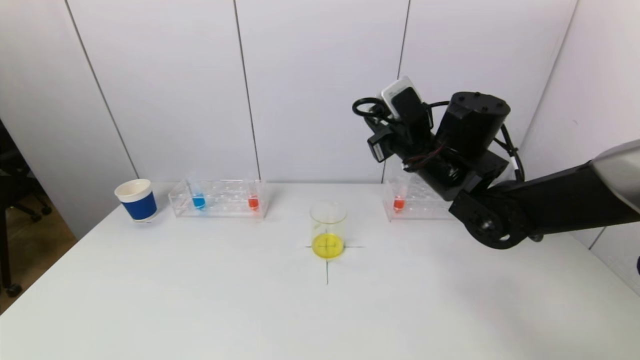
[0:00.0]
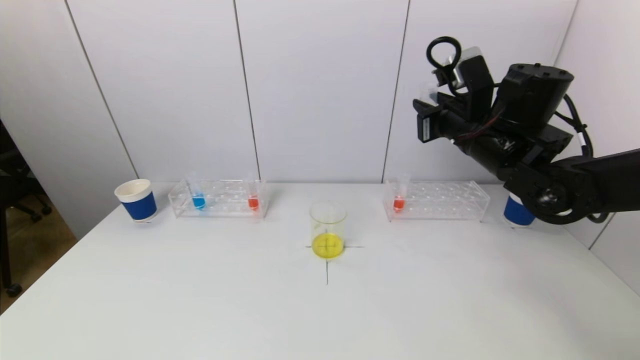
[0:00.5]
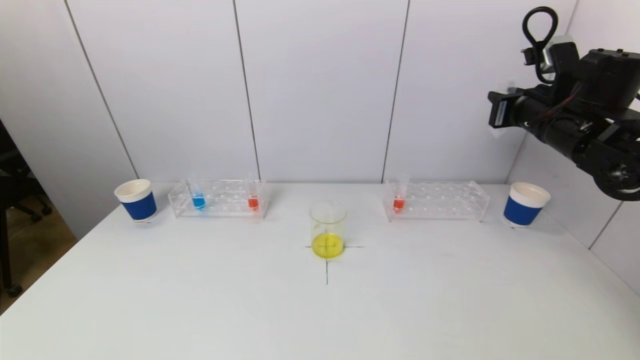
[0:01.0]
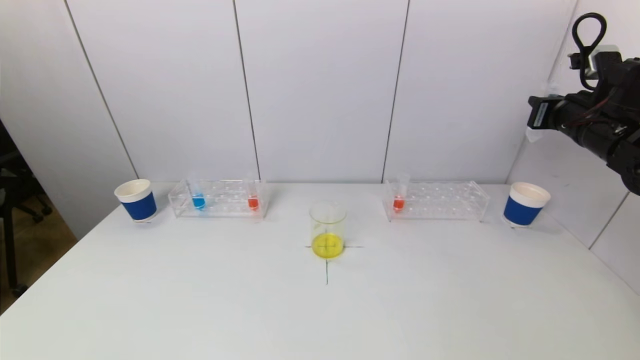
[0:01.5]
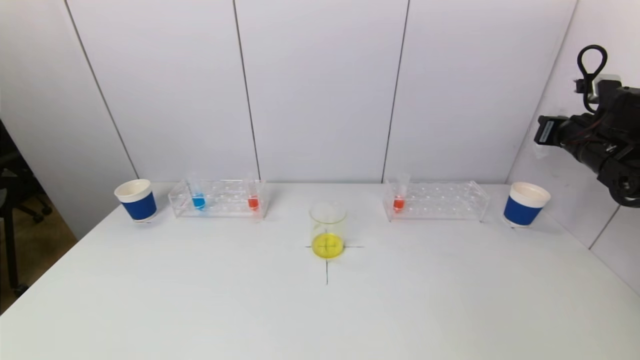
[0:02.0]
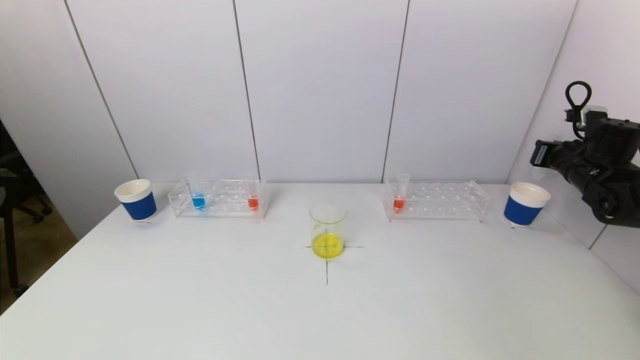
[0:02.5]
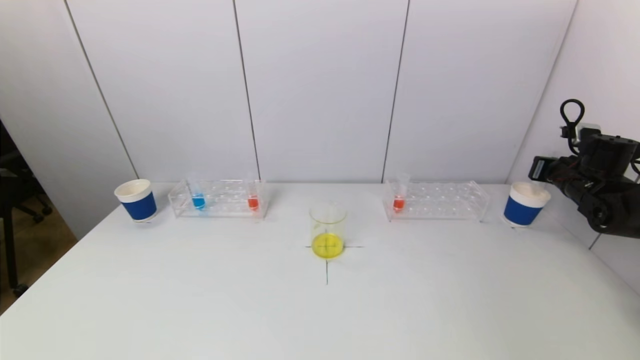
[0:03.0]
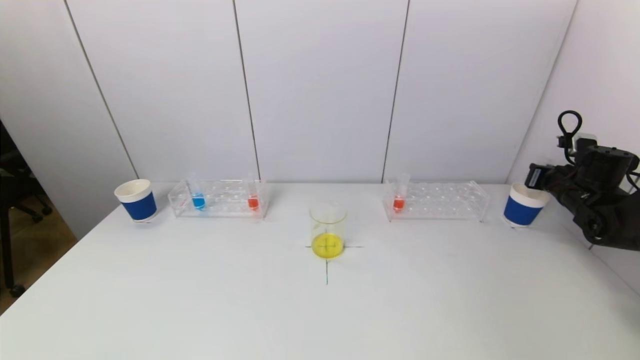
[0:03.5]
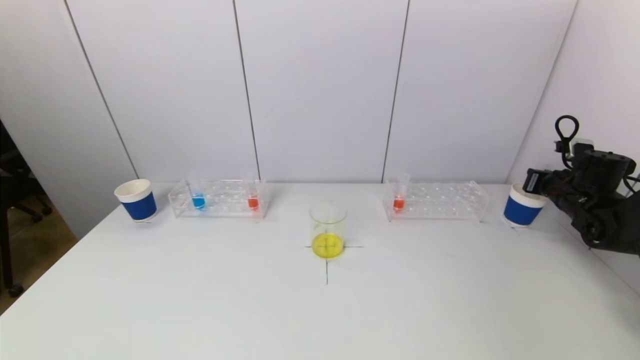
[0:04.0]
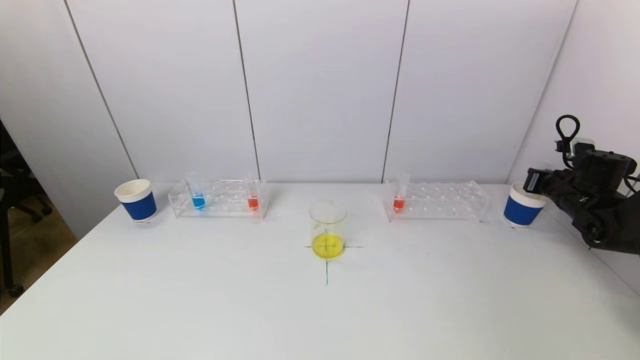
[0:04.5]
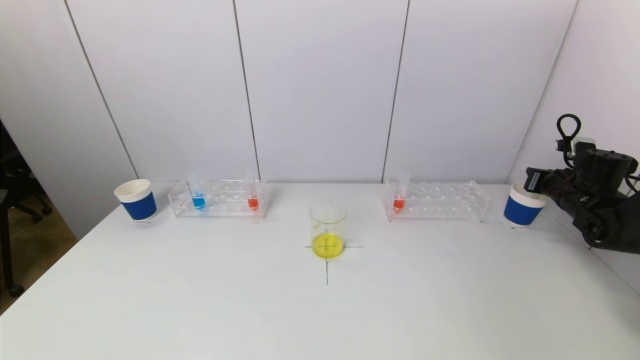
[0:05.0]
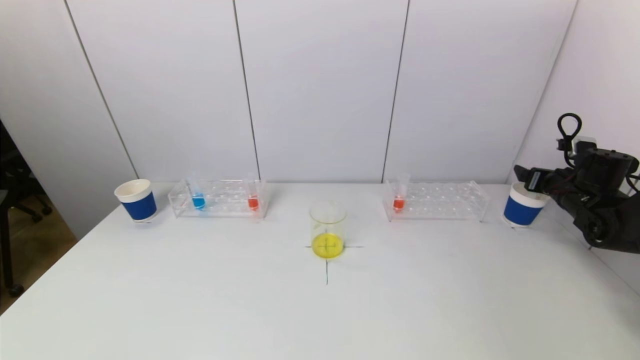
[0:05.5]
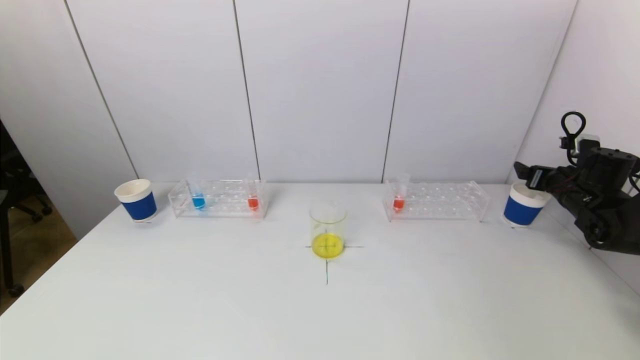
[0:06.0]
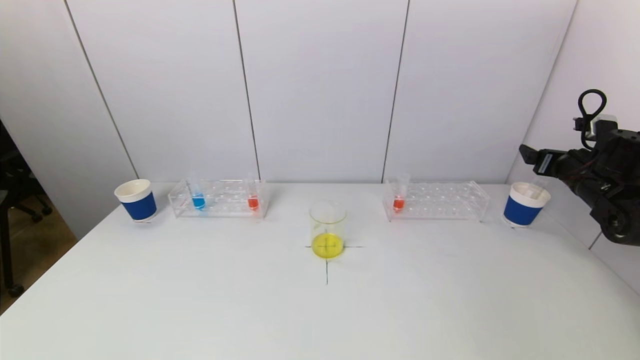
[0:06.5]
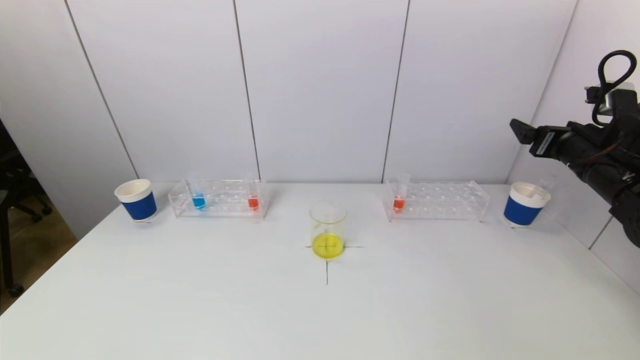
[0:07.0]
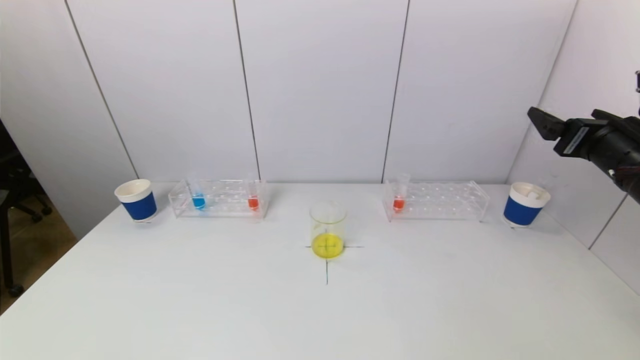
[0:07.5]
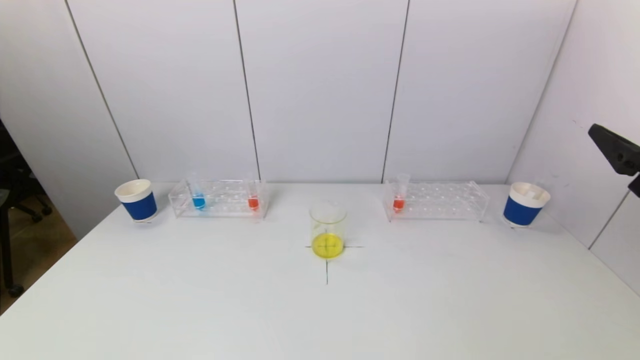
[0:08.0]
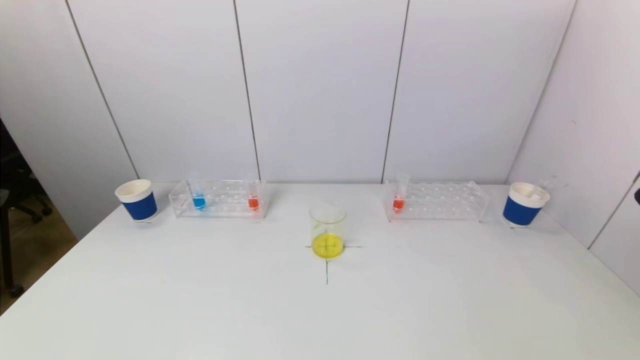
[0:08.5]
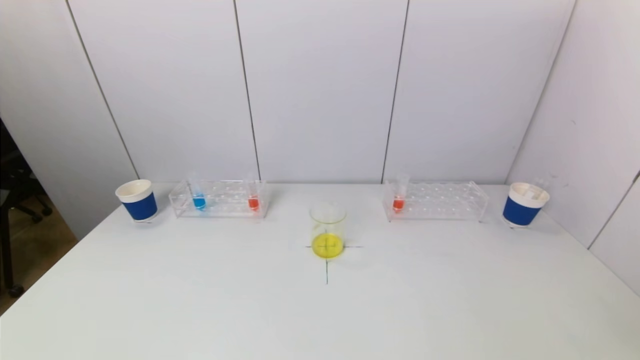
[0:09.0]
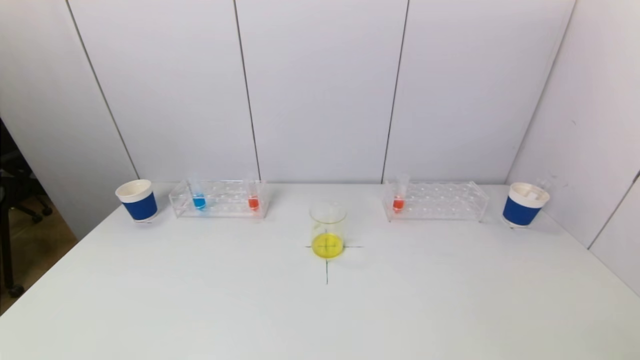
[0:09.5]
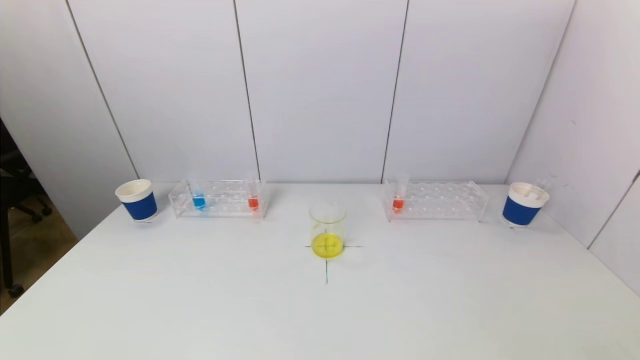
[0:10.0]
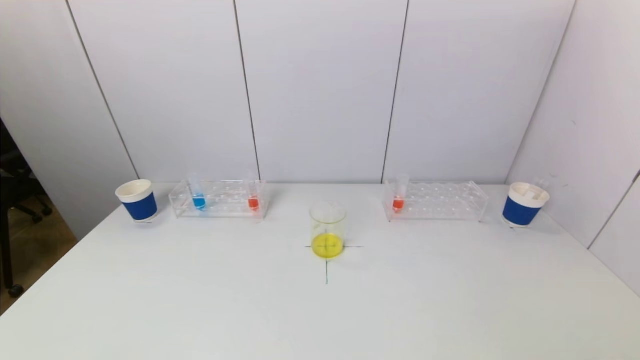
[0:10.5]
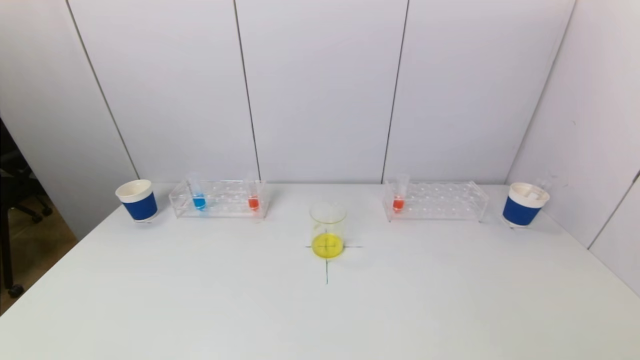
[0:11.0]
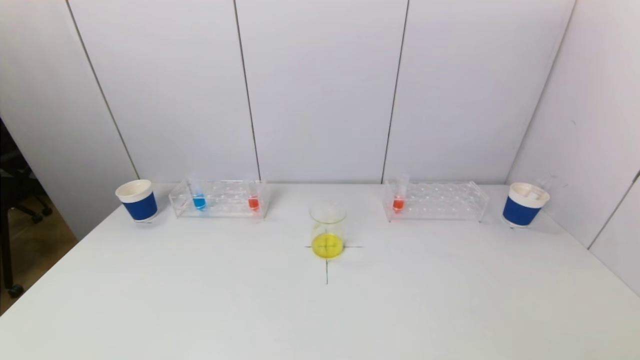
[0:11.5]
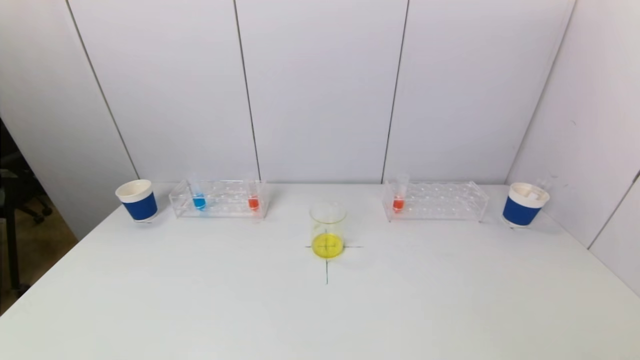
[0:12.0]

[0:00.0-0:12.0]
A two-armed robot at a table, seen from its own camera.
Task of the whole recording: pick up a test tube with pigment on left test tube rack and a test tube with pigment on right test tube rack by grippers and pour them into the beaker.
Step, 0:00.0 to 0:05.0: Place the test tube into the paper cup with the right gripper.
0:00.0 to 0:02.0: The right gripper travels to the right by approximately 30 cm.
0:02.0 to 0:04.0: The right gripper heads downward, covering roughly 10 cm.
0:04.0 to 0:06.0: The right gripper opens its fingers.
0:06.0 to 0:08.0: The right gripper heads backward, upward and to the left, covering some 30 cm.
0:08.0 to 0:10.0: The right gripper shifts about 25 cm backward and downward.

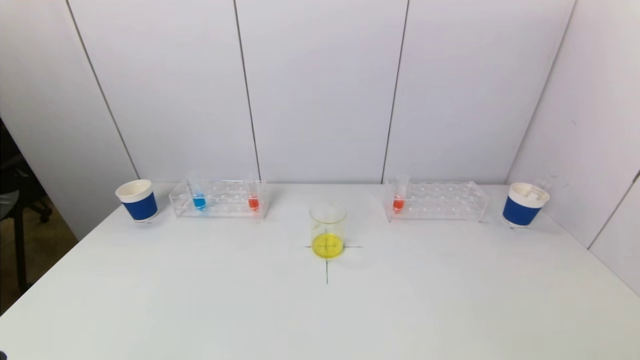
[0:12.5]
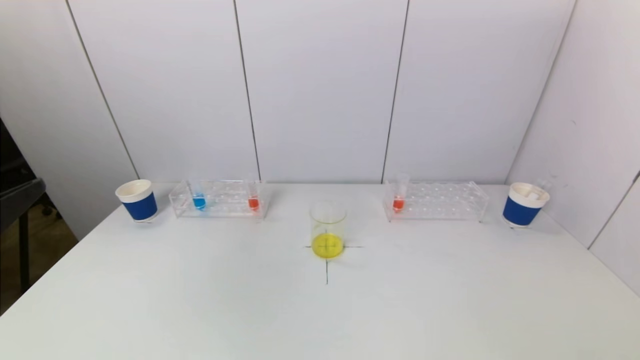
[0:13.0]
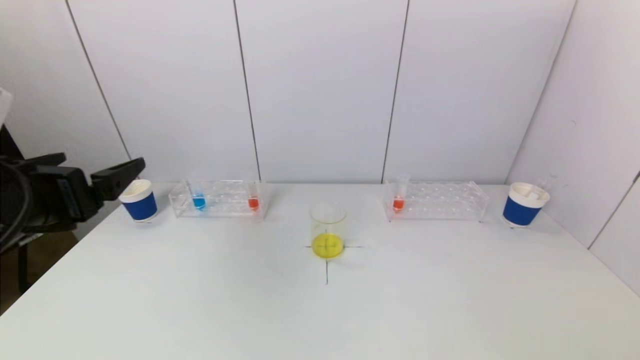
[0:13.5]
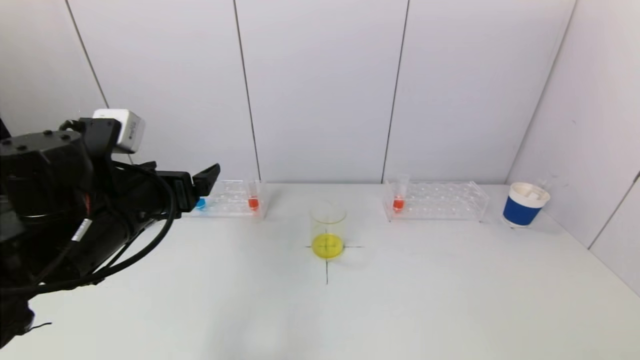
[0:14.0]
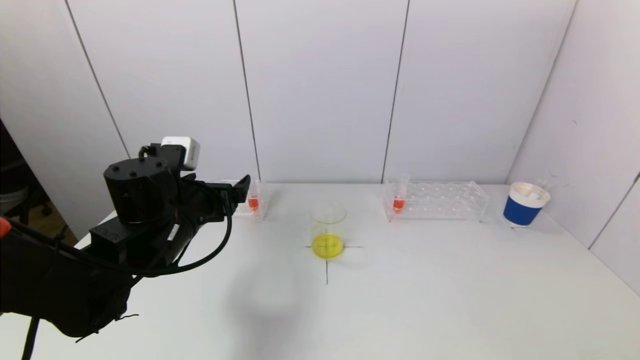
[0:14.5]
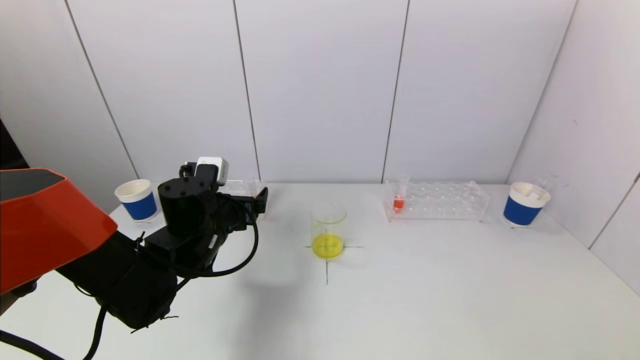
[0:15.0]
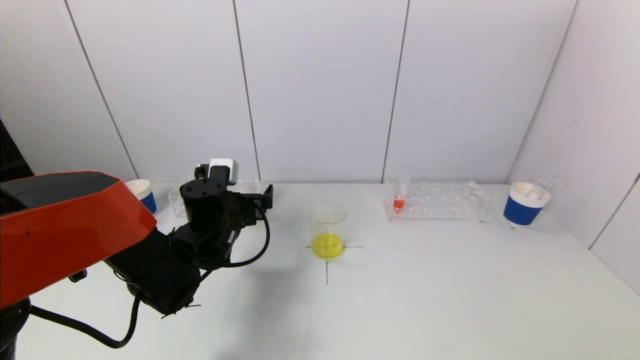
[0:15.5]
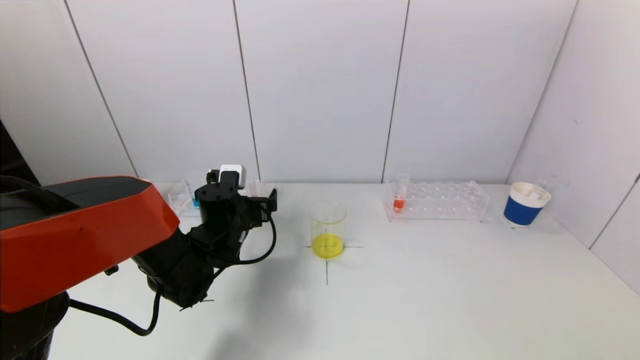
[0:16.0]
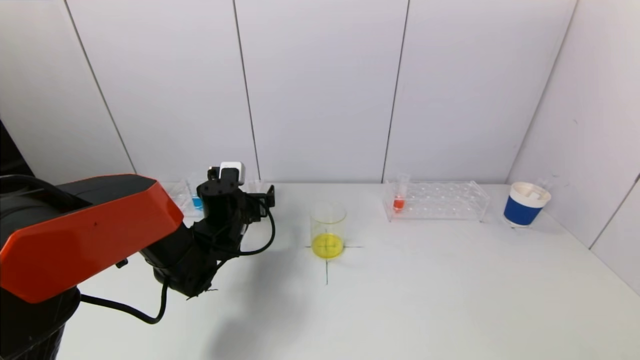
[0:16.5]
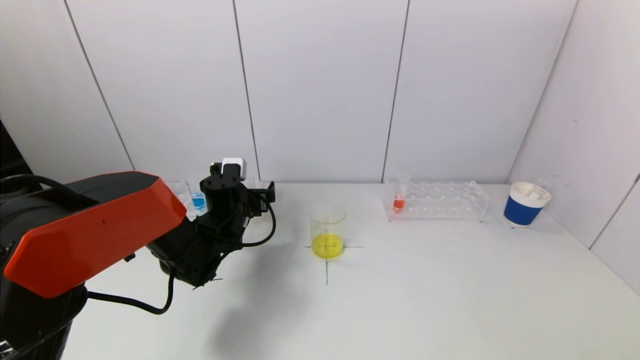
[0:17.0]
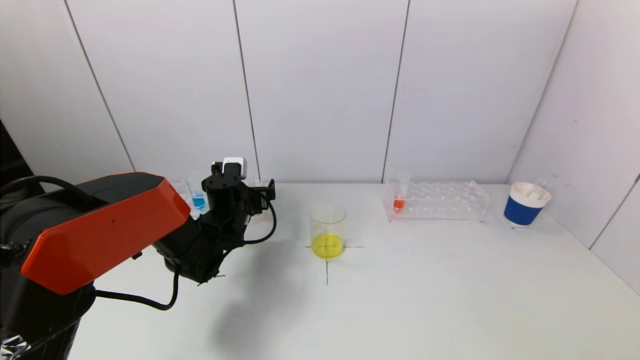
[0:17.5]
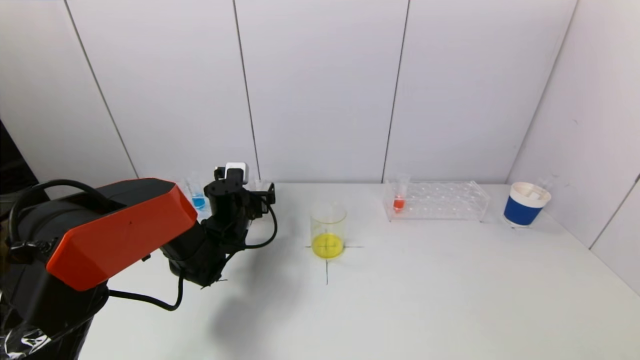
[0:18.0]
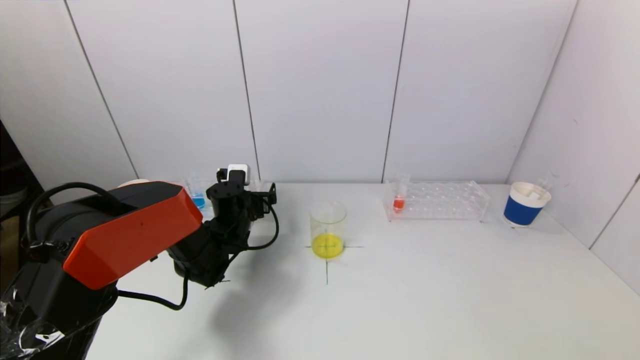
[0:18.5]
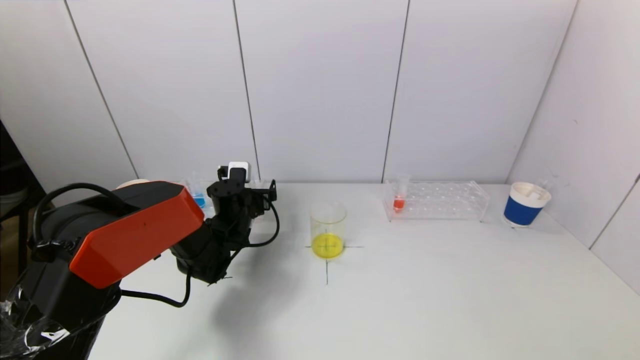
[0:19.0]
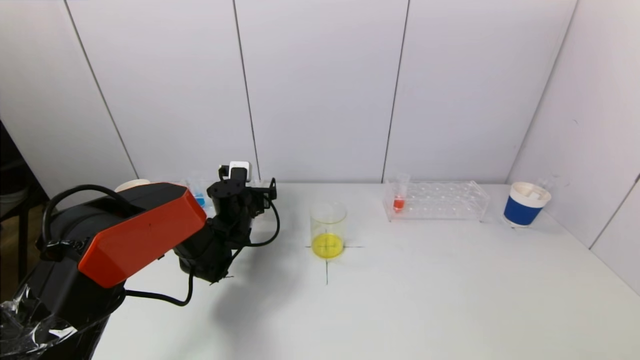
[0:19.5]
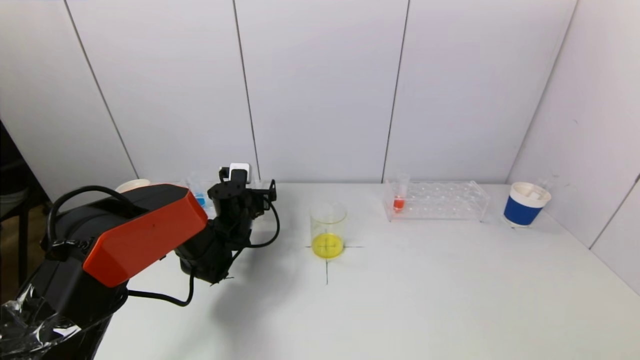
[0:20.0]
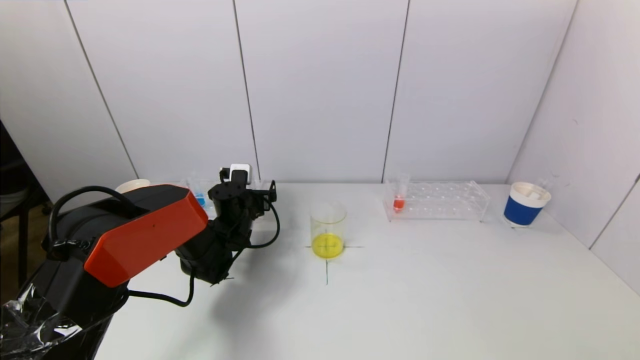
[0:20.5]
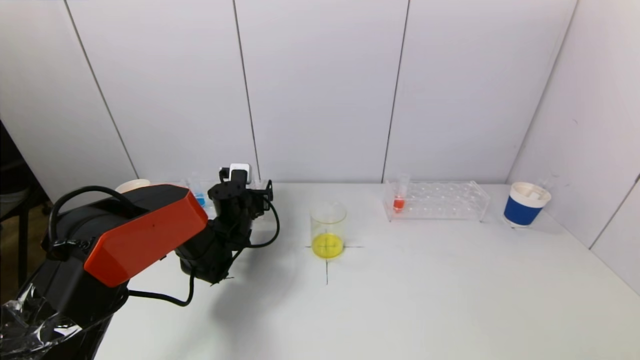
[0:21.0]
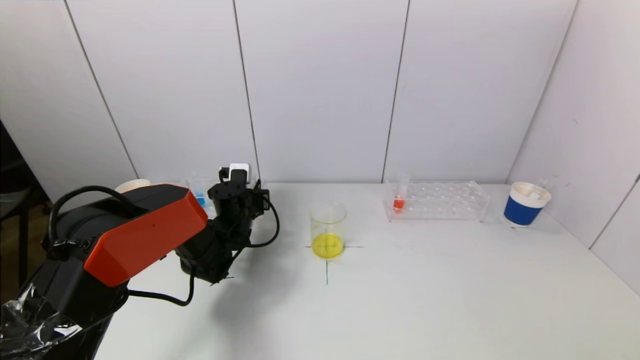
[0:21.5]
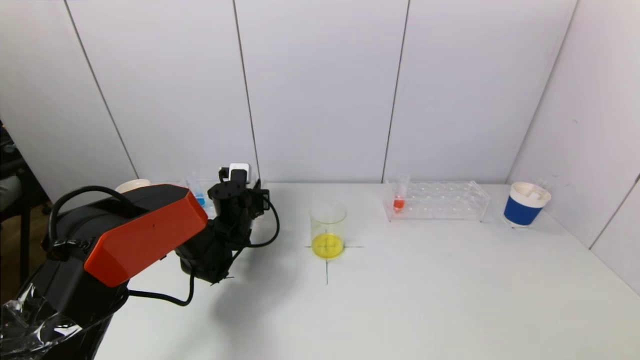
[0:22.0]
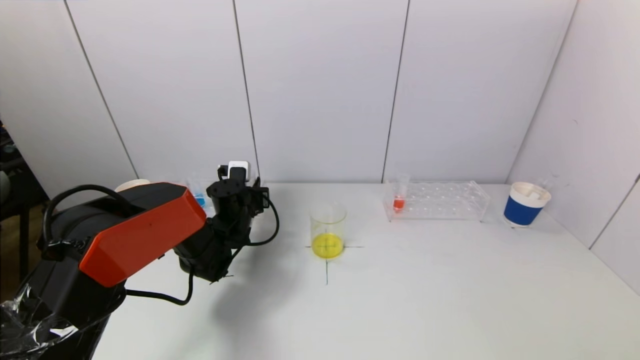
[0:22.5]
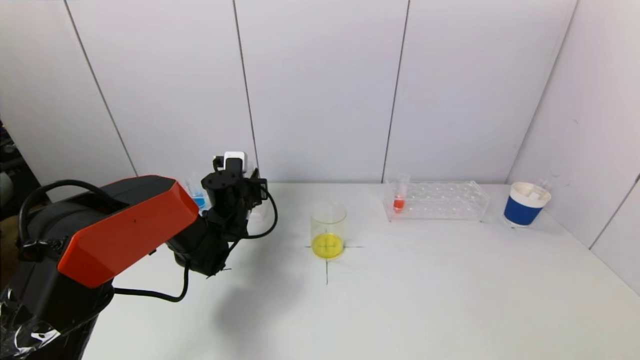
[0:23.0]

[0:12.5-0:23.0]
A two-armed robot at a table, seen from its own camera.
Task of the whole recording: pick up a test tube with pigment on left test tube rack and a test tube with pigment on right test tube rack by grippers and pour them into the beaker.
Step, 0:12.5 to 0:22.0: Grasp the red reagent with the left gripper.
0:12.5 to 0:14.5: The left gripper travels forward by roughly 30 cm.
0:14.5 to 0:16.5: The left gripper shifts roughly 15 cm forward and downward.
0:16.5 to 0:19.0: The grippers make only small movements.
0:19.0 to 0:21.0: Both grippers stay put.
0:21.0 to 0:23.0: The left gripper closes its fingers.
